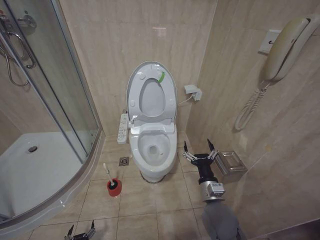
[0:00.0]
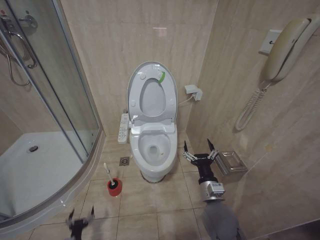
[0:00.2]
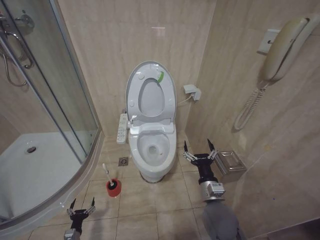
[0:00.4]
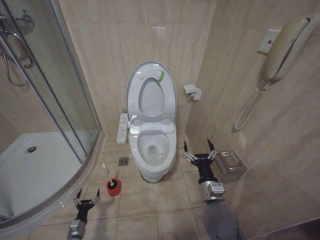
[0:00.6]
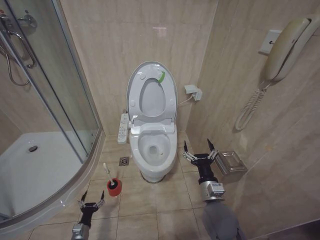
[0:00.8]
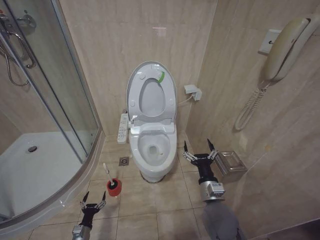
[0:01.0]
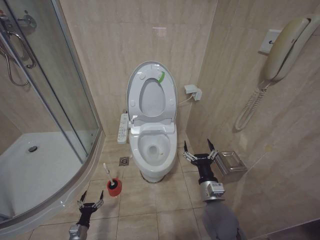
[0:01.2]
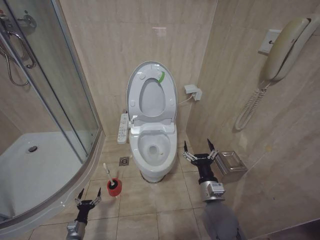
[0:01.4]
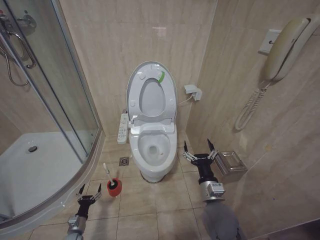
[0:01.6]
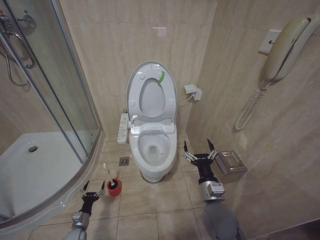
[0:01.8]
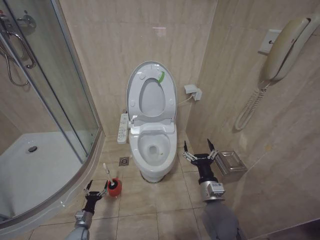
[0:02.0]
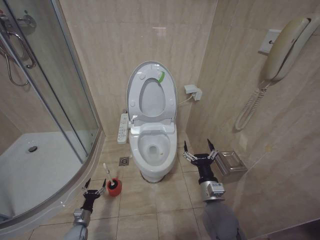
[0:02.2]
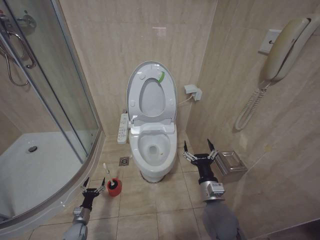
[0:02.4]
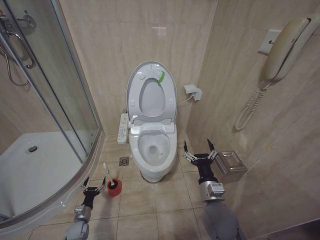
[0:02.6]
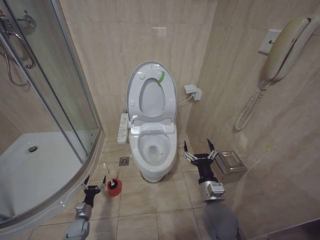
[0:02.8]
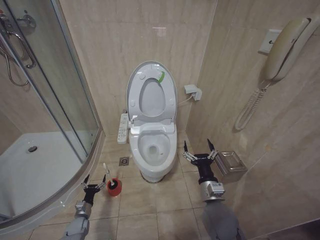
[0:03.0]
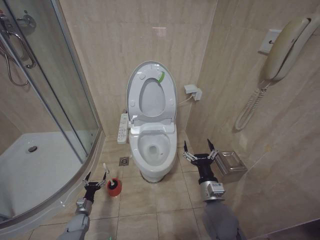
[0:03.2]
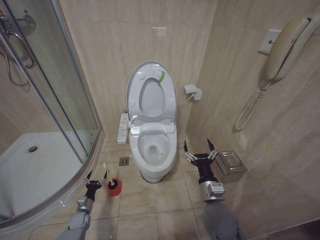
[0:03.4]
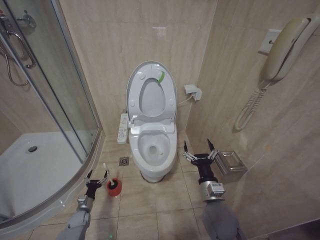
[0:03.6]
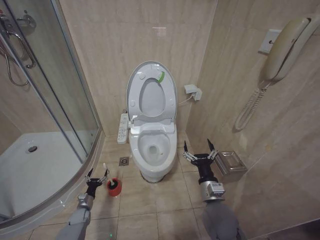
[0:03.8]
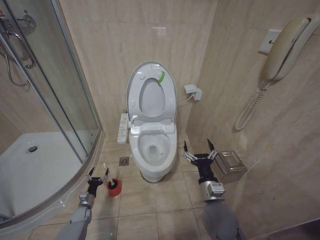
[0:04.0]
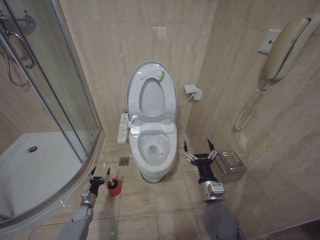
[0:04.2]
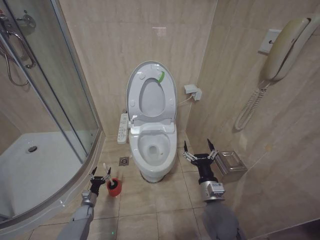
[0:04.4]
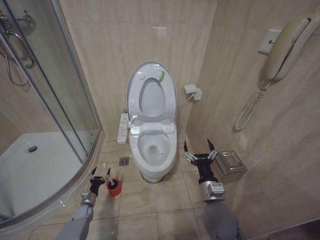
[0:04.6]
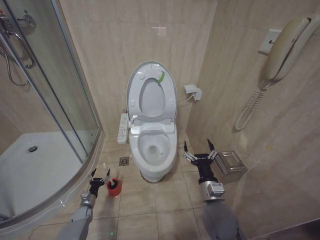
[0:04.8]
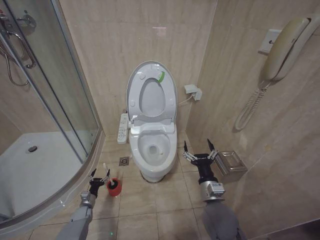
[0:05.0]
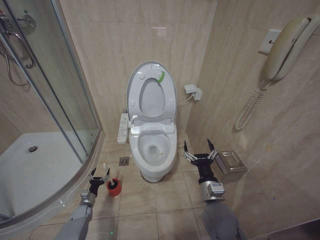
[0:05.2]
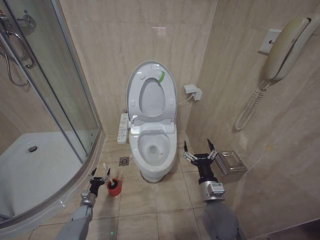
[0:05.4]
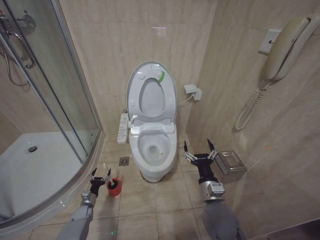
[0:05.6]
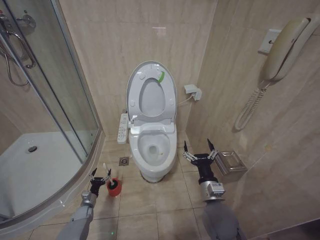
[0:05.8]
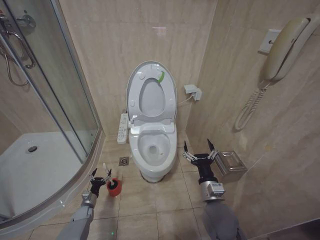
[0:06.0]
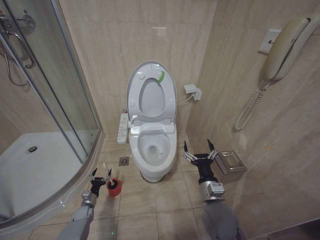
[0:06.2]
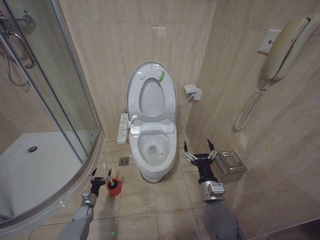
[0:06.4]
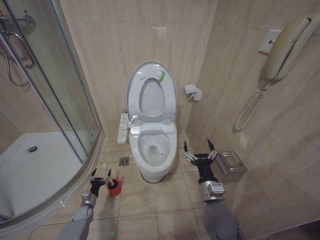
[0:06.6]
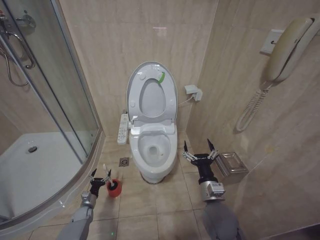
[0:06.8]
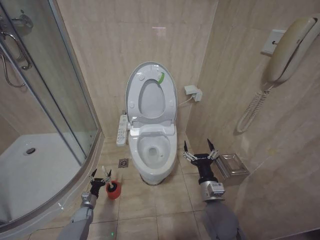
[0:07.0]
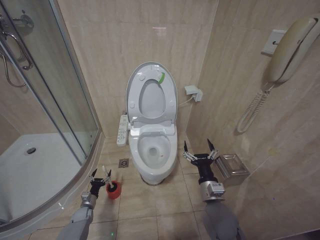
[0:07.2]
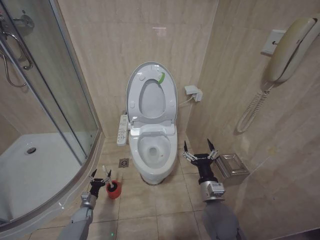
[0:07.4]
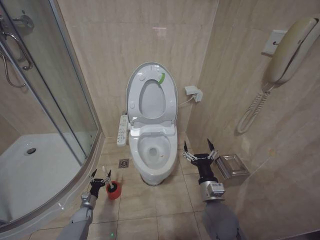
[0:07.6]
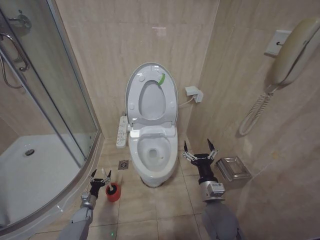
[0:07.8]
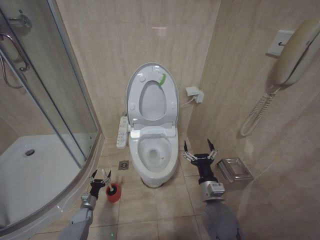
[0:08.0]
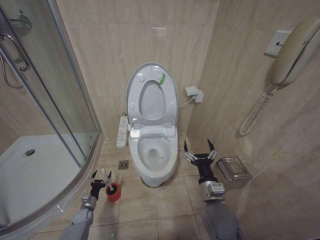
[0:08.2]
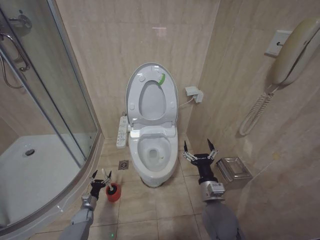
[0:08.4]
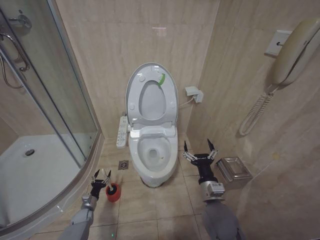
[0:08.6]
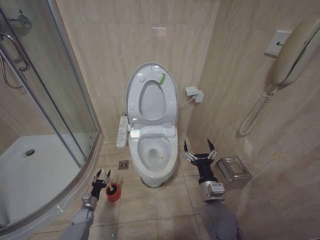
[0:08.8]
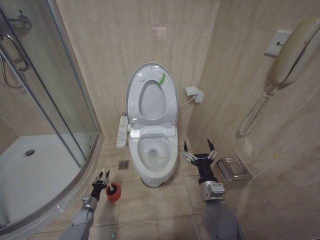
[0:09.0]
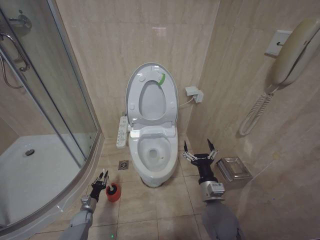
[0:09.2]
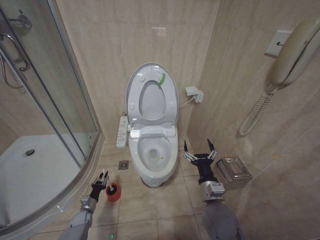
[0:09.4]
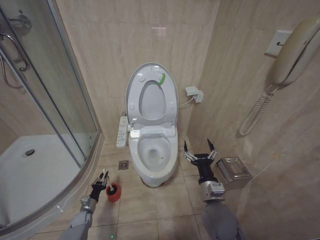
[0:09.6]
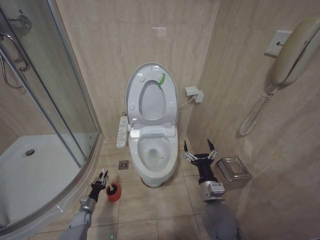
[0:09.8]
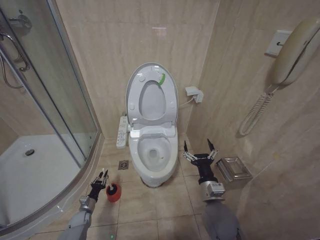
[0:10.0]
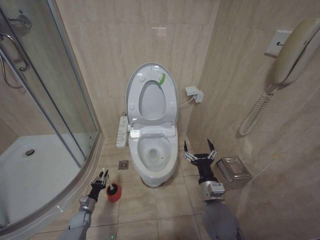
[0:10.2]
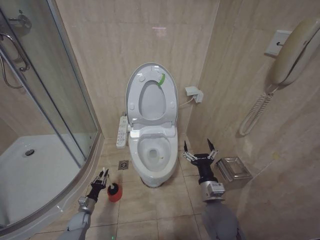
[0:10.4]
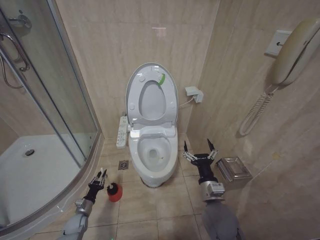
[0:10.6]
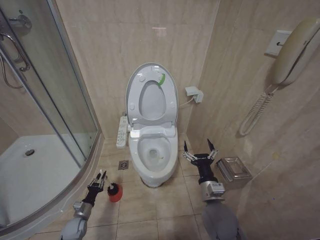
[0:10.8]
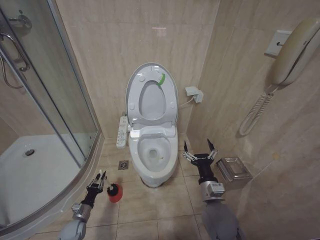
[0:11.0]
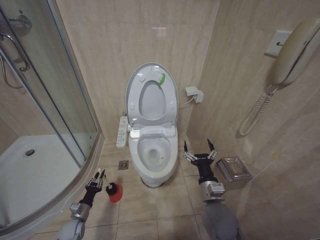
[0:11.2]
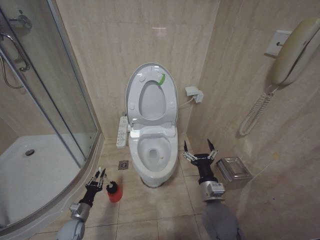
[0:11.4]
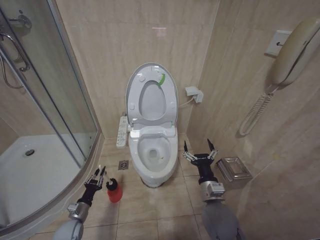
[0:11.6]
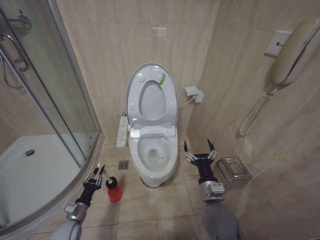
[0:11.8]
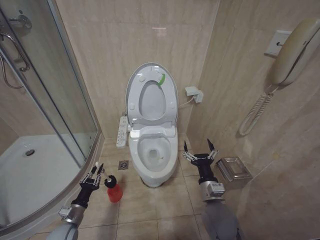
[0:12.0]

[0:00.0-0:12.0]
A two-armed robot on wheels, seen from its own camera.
Task of the whole recording: Open the toilet lid, clean the toilet bowl with a toilet brush, close the toilet lid, and flush.
0:00.0 to 0:01.6: The left gripper moves forward, roughly 10 cm.
0:01.6 to 0:03.0: The left gripper is displaced forward by about 5 cm.
0:03.0 to 0:04.4: The grippers make only small movements.
0:04.4 to 0:07.6: Both grippers stay put.
0:07.6 to 0:09.0: The left gripper closes.
0:10.4 to 0:12.0: The left gripper heads upward and backward, covering roughly 15 cm.

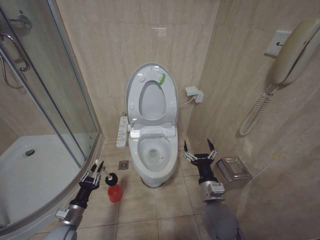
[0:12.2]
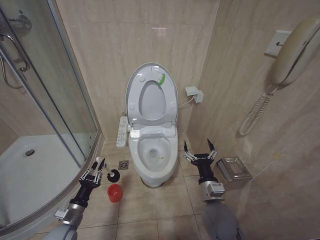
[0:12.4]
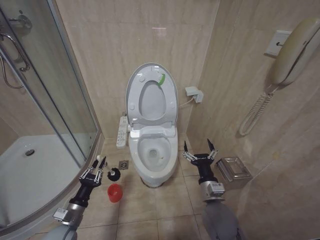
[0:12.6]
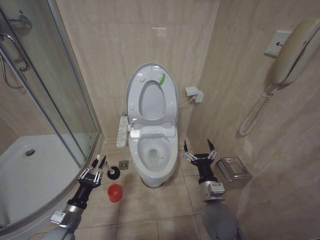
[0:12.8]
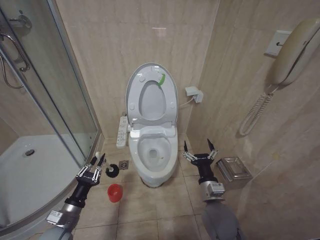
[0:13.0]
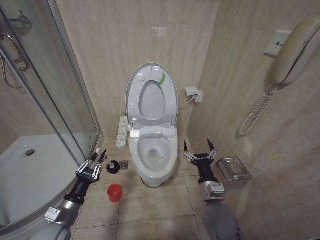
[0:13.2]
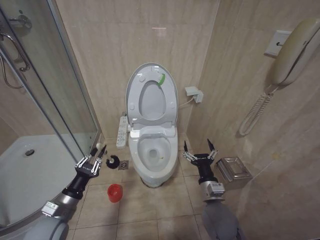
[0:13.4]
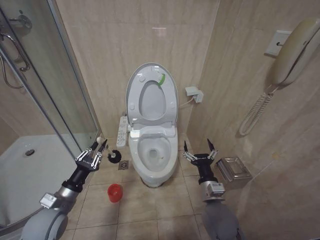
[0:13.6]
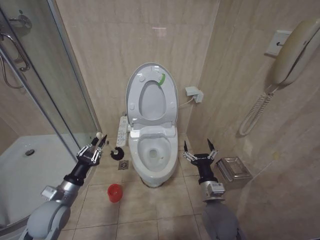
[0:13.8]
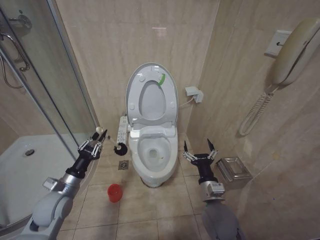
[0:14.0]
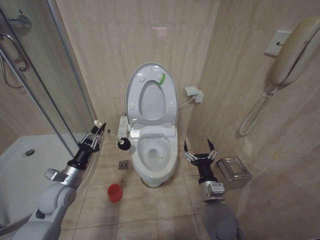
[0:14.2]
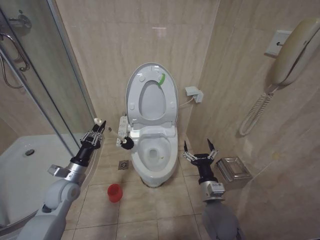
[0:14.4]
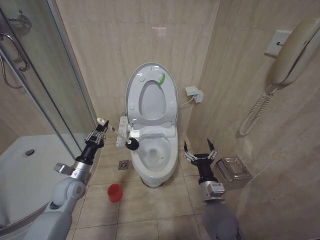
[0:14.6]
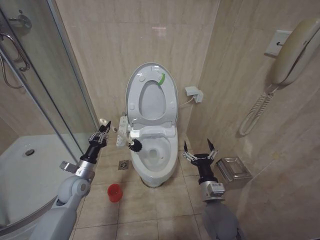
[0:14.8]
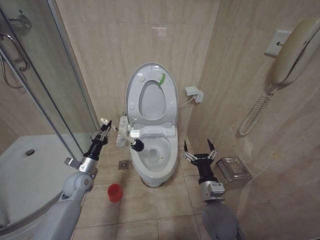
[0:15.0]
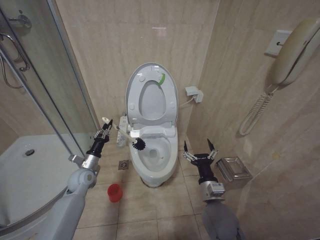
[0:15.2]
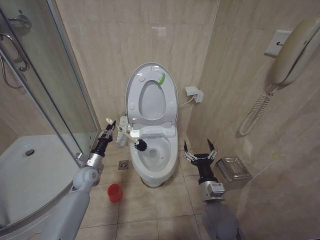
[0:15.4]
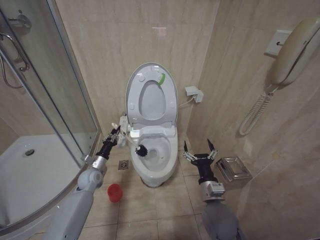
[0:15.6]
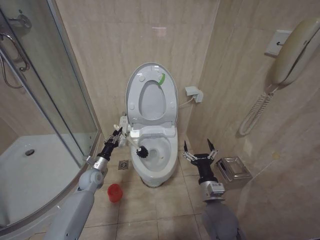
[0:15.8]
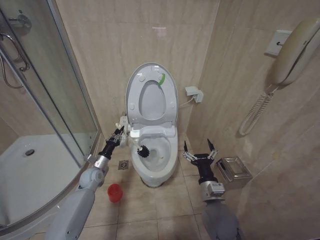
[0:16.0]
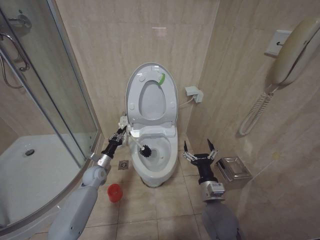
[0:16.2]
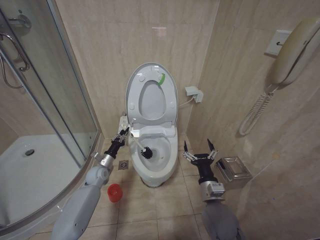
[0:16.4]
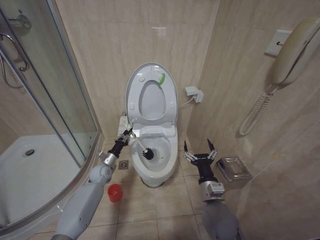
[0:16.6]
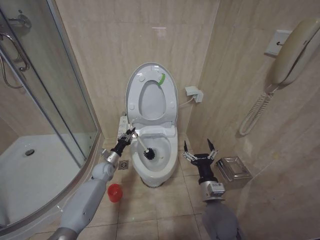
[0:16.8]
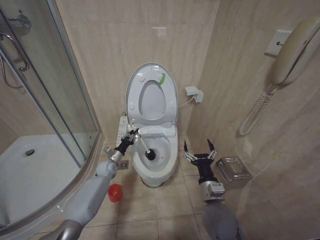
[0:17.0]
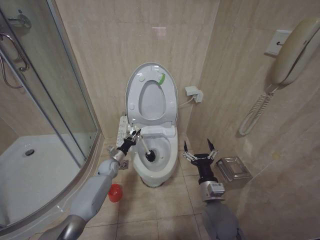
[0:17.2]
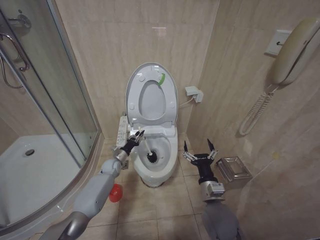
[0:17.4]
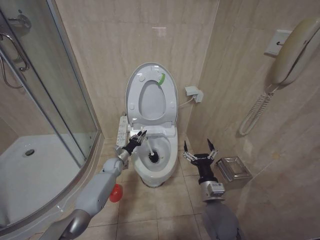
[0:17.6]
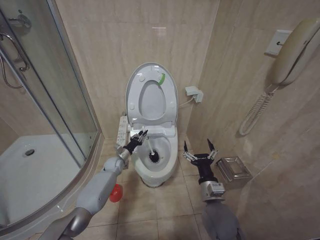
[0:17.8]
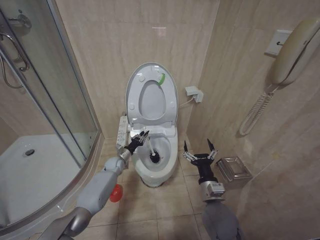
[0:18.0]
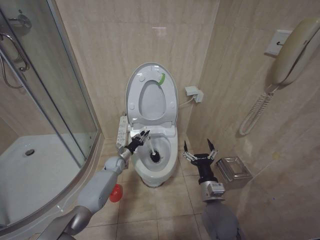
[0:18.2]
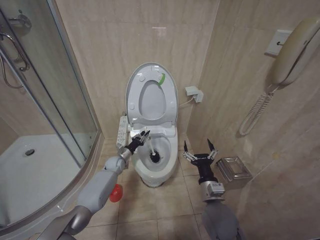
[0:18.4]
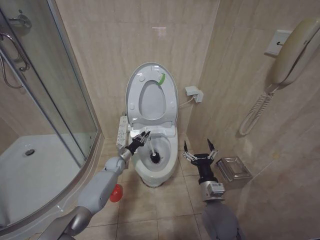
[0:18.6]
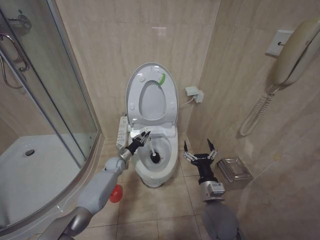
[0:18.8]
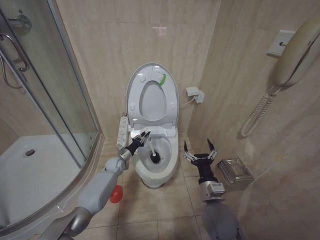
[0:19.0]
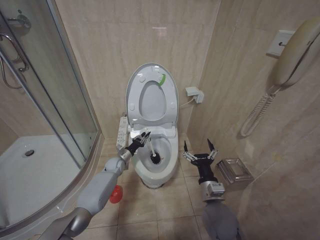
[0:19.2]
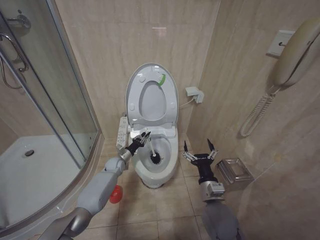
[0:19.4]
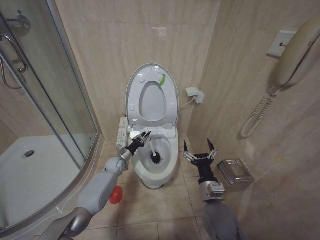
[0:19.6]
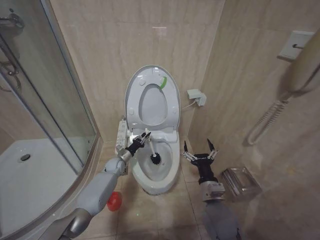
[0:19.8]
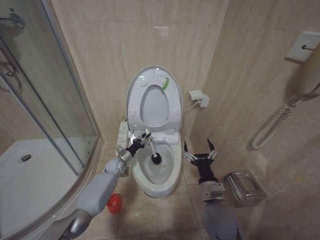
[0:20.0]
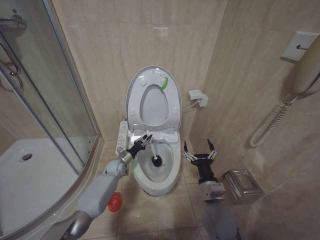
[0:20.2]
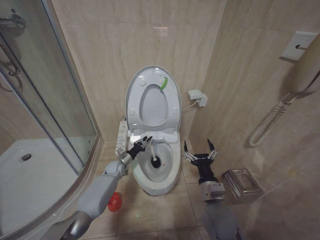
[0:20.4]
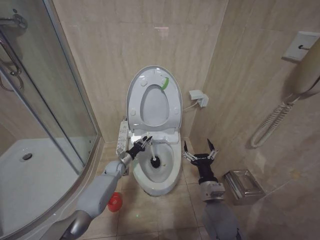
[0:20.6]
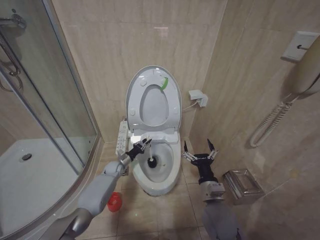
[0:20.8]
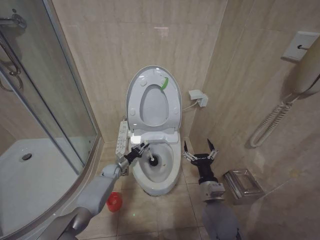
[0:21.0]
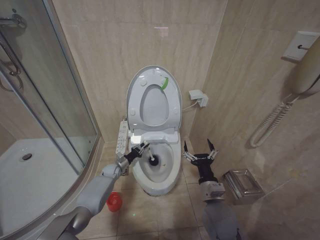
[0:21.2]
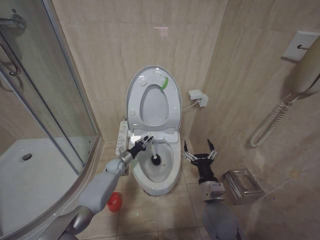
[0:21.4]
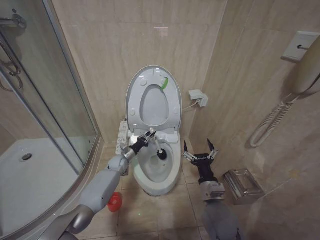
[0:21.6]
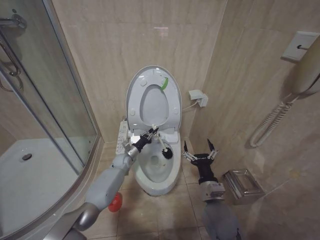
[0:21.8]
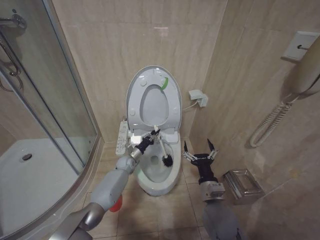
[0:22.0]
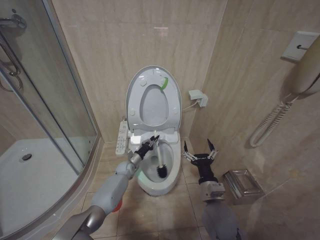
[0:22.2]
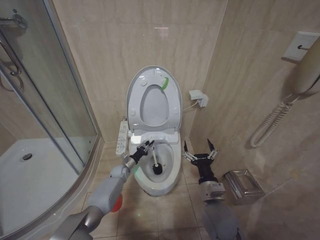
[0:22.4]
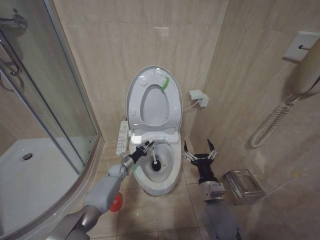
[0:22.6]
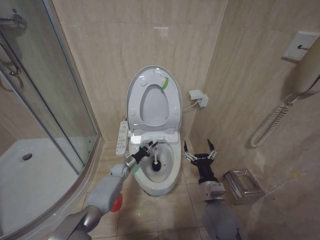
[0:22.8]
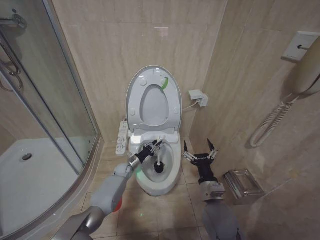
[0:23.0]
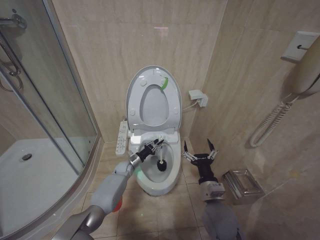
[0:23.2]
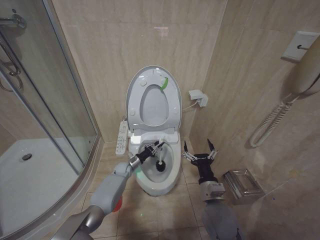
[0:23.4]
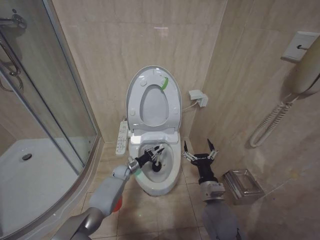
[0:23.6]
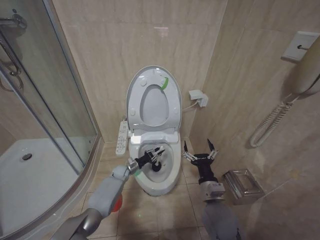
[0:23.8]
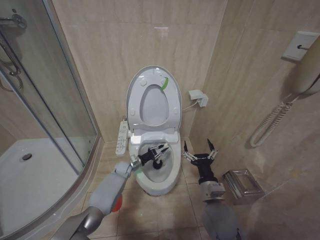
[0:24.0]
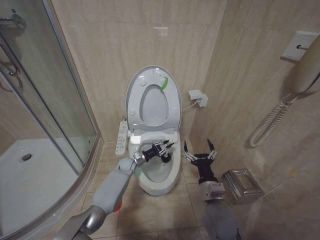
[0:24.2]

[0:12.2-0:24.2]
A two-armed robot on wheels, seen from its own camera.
Task of the whole recording: Open the toilet lid, clean the toilet bowl with a toilet brush, close the toilet lid, and flush.
0:12.2 to 0:13.8: The left gripper goes some 15 cm upward.
0:13.8 to 0:15.2: The left gripper travels forward by approximately 15 cm.
0:15.2 to 0:16.6: The left gripper is displaced forward and downward by roughly 10 cm.
0:16.6 to 0:18.2: The left gripper heads forward and to the right, covering some 10 cm.
0:18.2 to 0:19.8: Both grippers stay put.
0:19.8 to 0:21.2: The left gripper goes roughly 5 cm downward.
0:22.6 to 0:24.2: The left gripper goes some 10 cm to the right and upward.
